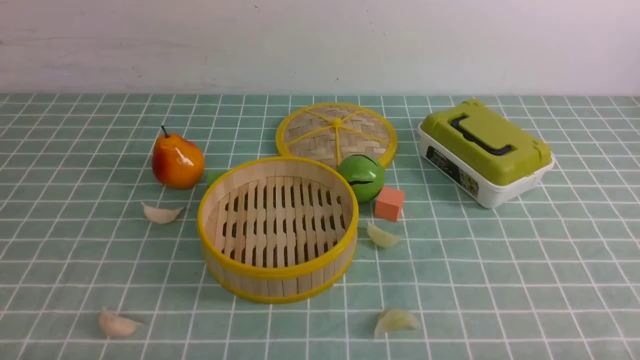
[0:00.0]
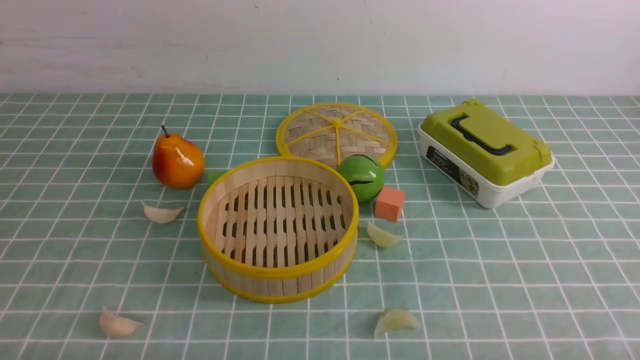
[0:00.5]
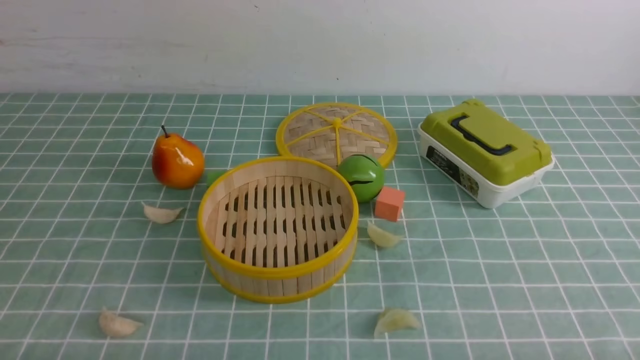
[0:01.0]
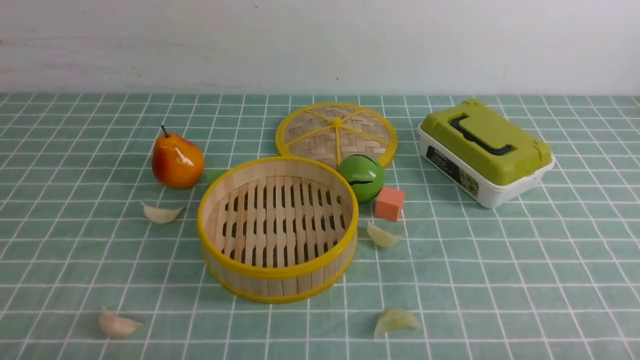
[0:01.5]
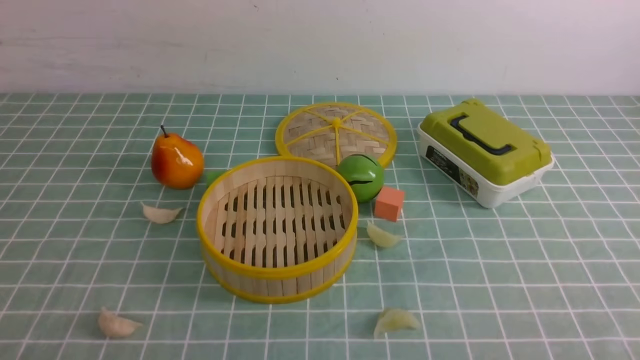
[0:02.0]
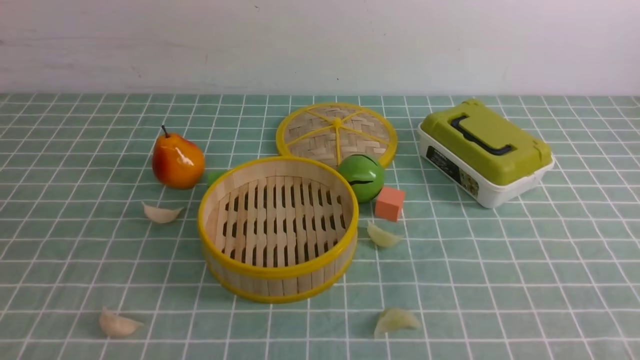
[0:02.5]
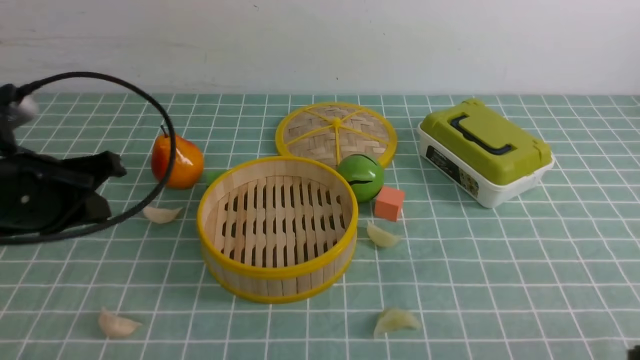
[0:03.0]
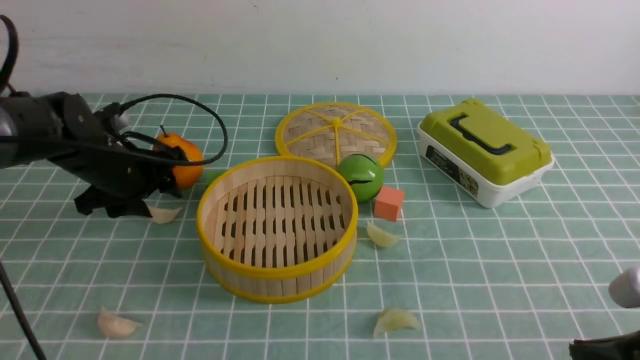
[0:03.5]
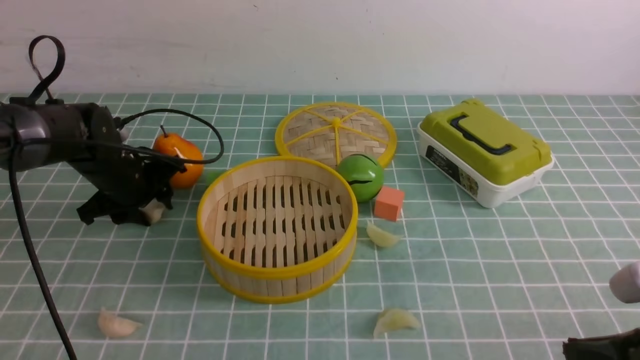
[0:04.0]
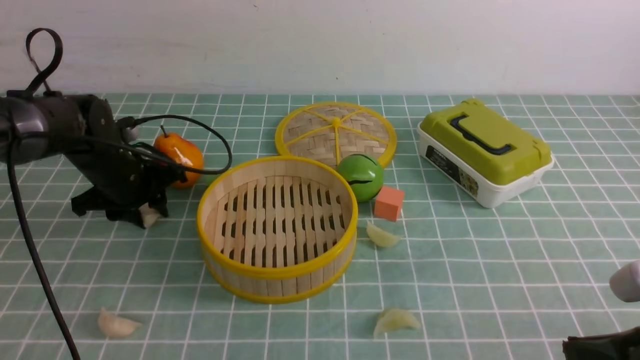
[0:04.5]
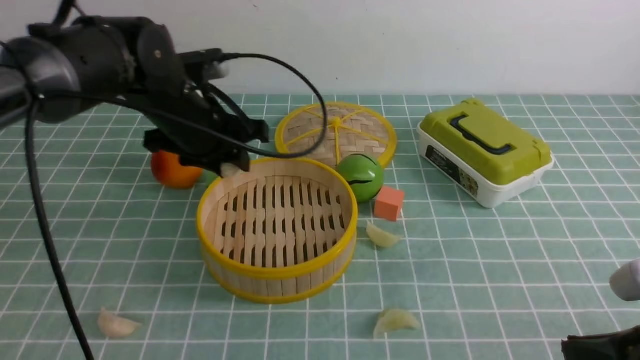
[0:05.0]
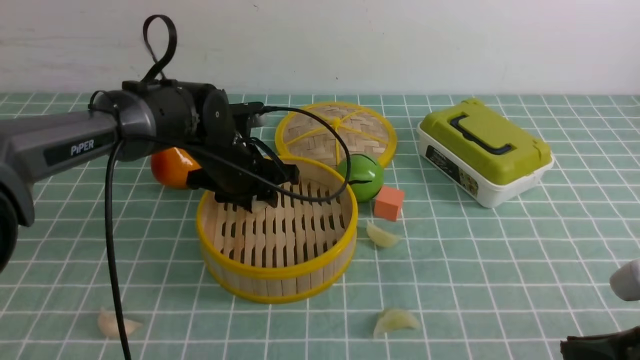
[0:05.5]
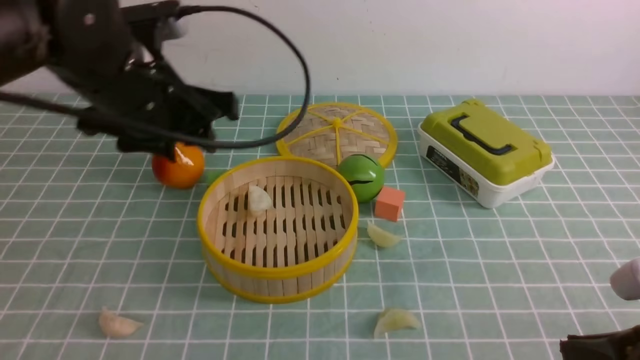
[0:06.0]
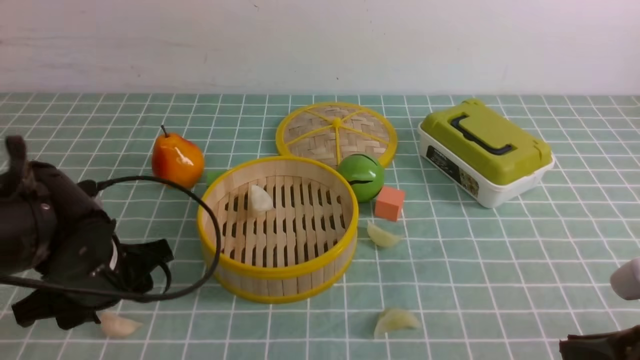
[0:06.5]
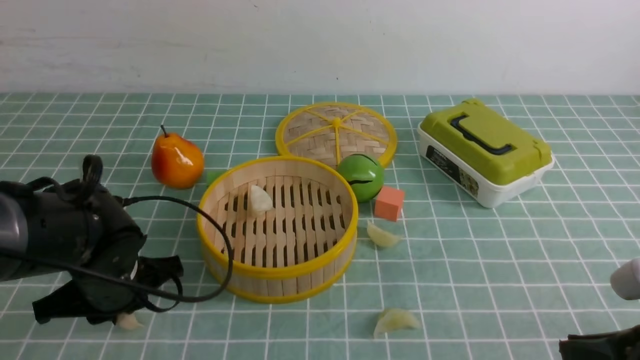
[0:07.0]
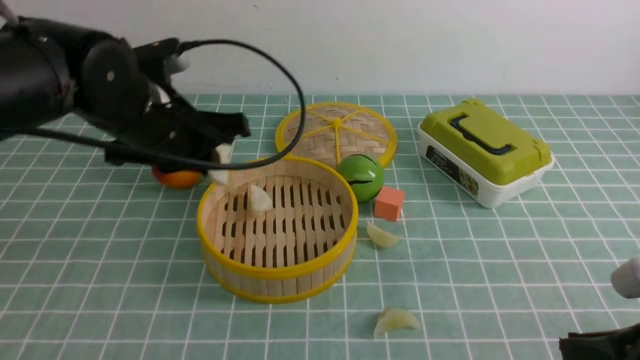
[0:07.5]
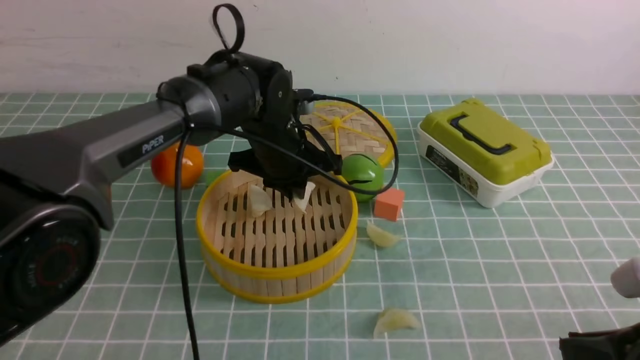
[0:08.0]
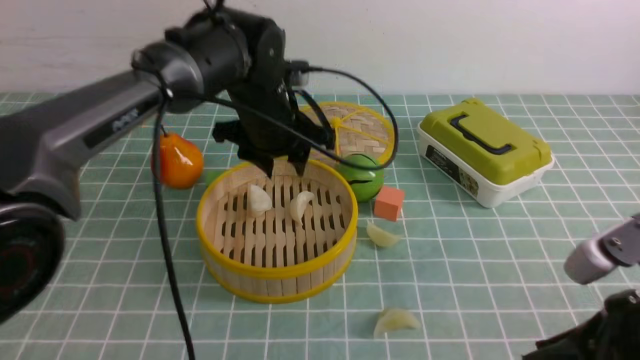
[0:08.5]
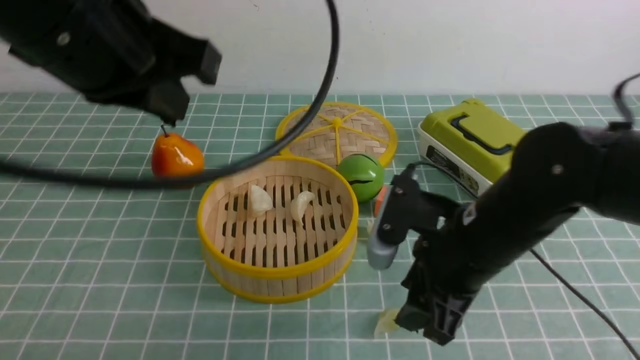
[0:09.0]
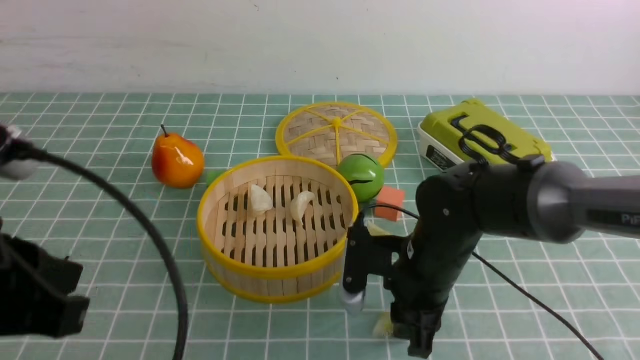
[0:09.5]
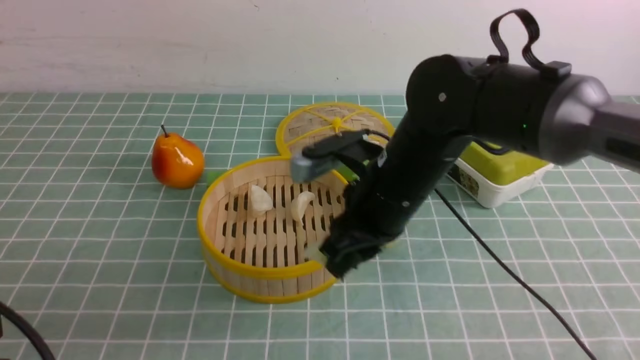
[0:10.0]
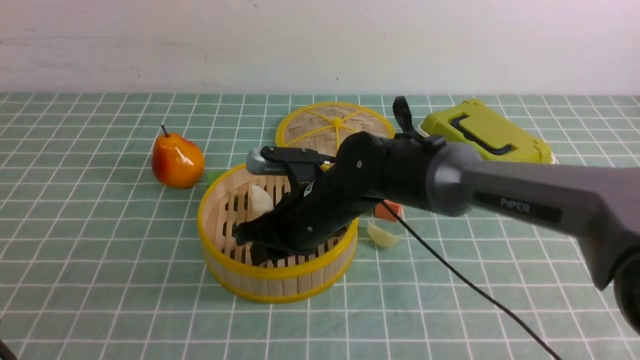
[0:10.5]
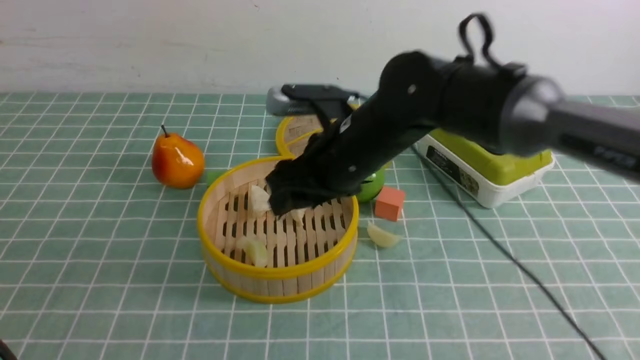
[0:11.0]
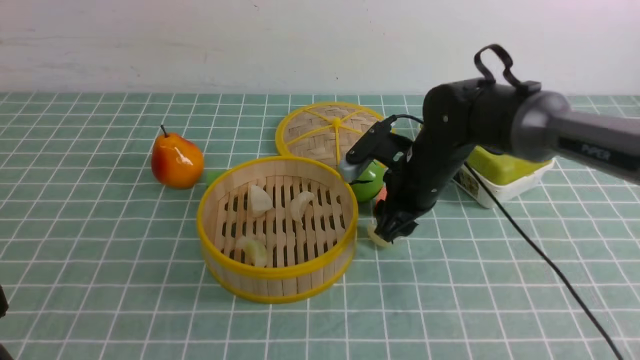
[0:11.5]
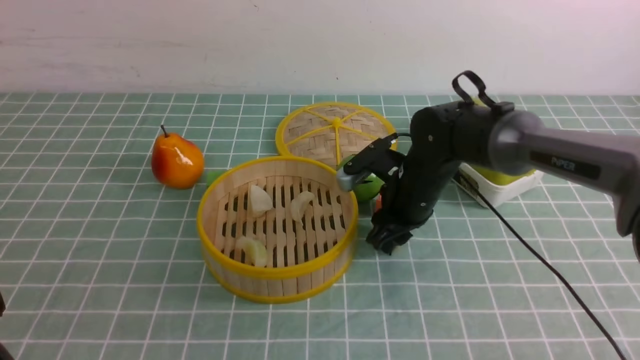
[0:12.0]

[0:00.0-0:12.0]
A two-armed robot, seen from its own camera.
Task of the whole recording: put the dumplings into the steamer on the table with the blue tablecloth.
Step, 0:00.0 to 0:04.5: use the left arm to grab a dumpling.
Step, 0:05.0 to 0:06.0: use the left arm to put the dumpling into the steamer.
Step, 0:06.5 to 0:07.0: use the left arm to grab a dumpling.
Step, 0:07.5 to 0:08.0: use the left arm to put the dumpling into the steamer.
Step, 0:08.5 to 0:10.0: use the right arm to grab a dumpling.
Step, 0:10.5 to 0:11.0: use the right arm to put the dumpling into the steamer.
0:02.0 to 0:04.0: The left gripper heads forward, covering about 40 cm, and opens its fingers; the right gripper goes about 10 cm forward and to the left, and closes up.
0:04.0 to 0:06.0: The left gripper moves upward, backward and to the right, roughly 20 cm.
0:06.0 to 0:08.0: The left gripper heads forward, to the right and downward, covering approximately 15 cm, and closes up.
0:08.0 to 0:10.0: The left gripper shifts some 40 cm backward and to the left, and opens, then closes once more, while the right gripper is displaced to the left and forward by about 30 cm, and opens, then closes once more.
0:10.0 to 0:12.0: The right gripper is displaced forward, downward and to the right by roughly 15 cm.

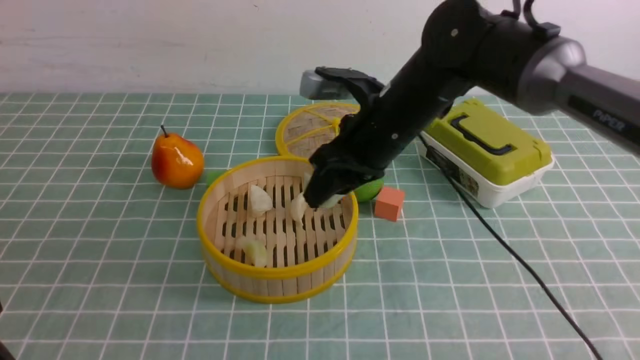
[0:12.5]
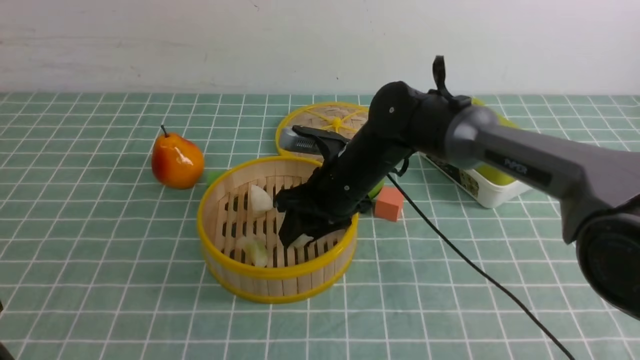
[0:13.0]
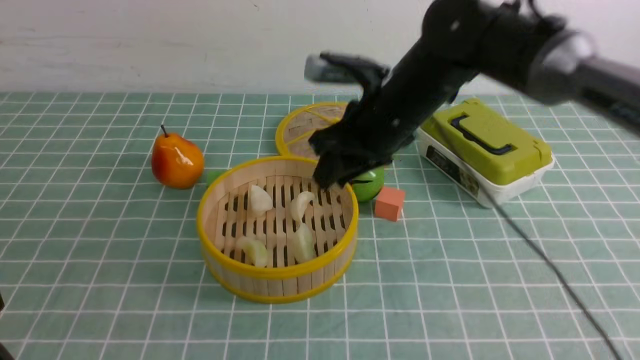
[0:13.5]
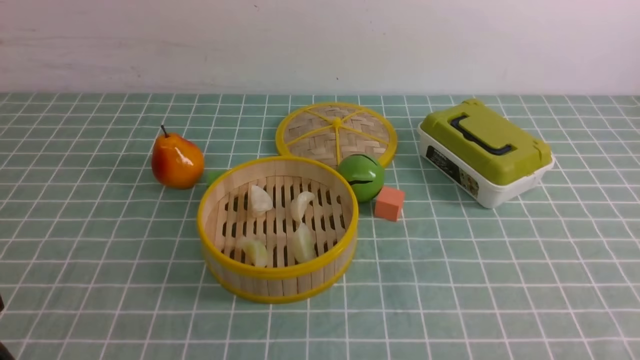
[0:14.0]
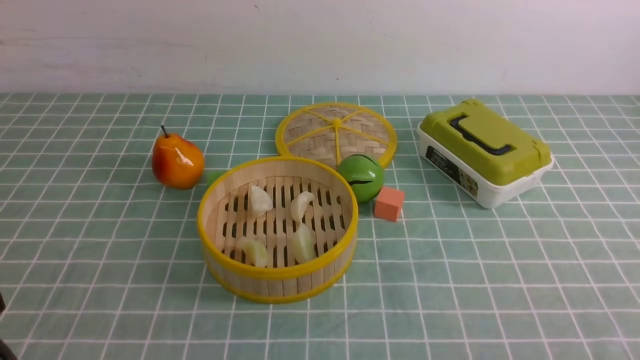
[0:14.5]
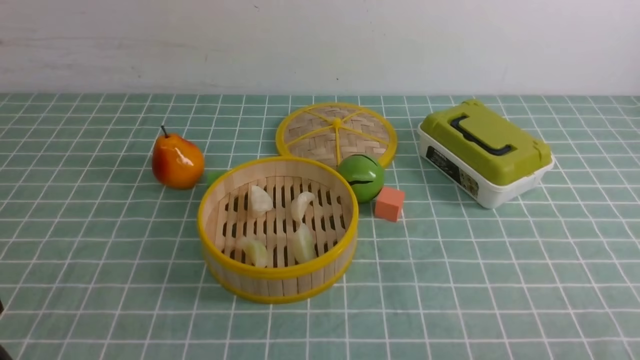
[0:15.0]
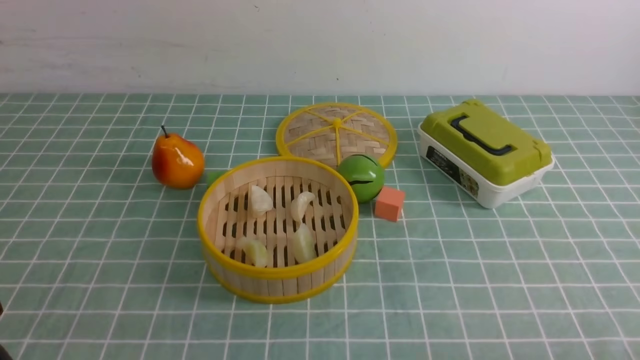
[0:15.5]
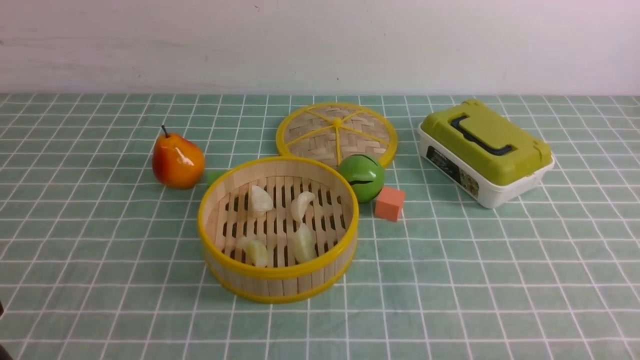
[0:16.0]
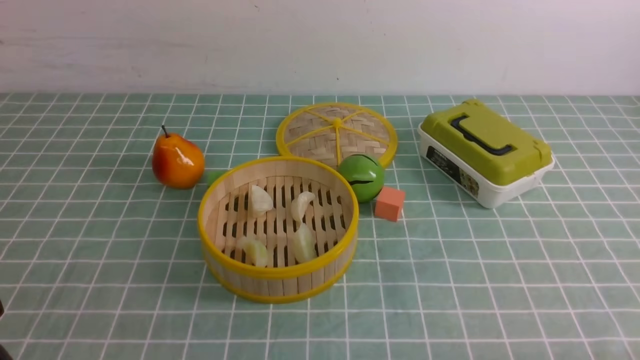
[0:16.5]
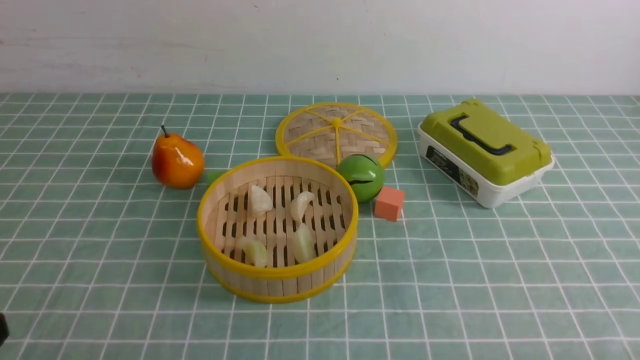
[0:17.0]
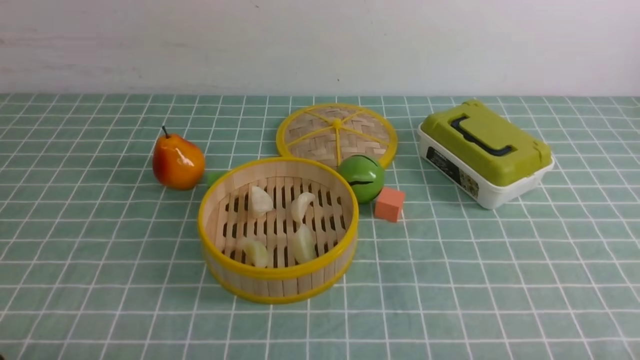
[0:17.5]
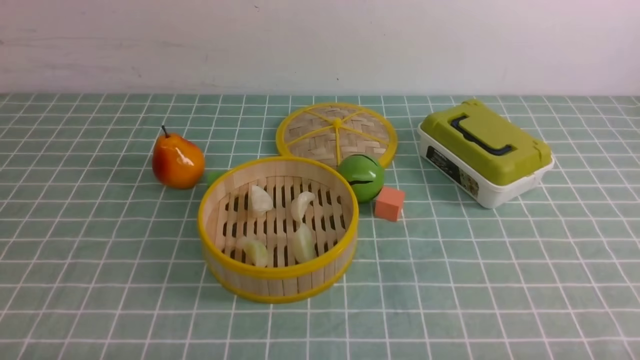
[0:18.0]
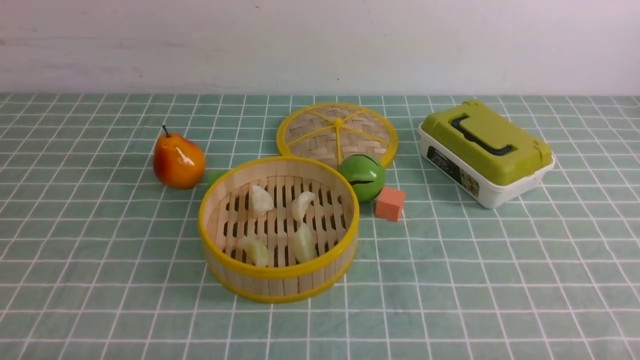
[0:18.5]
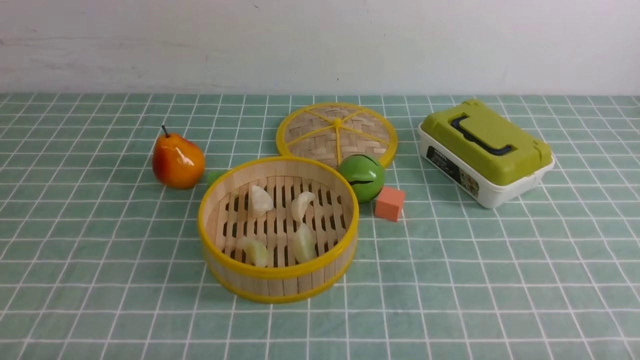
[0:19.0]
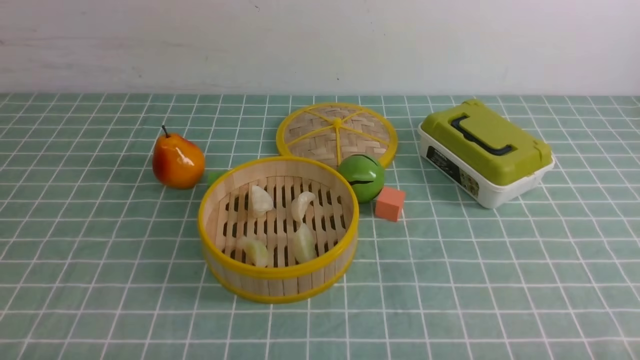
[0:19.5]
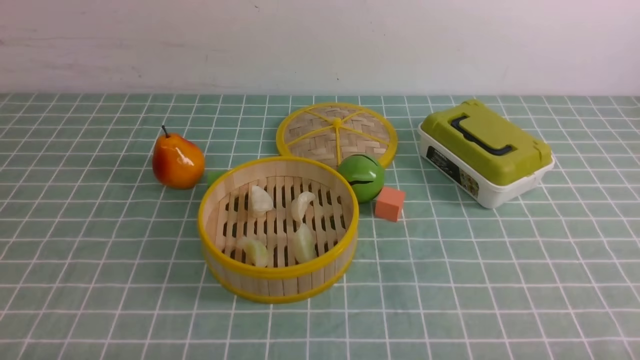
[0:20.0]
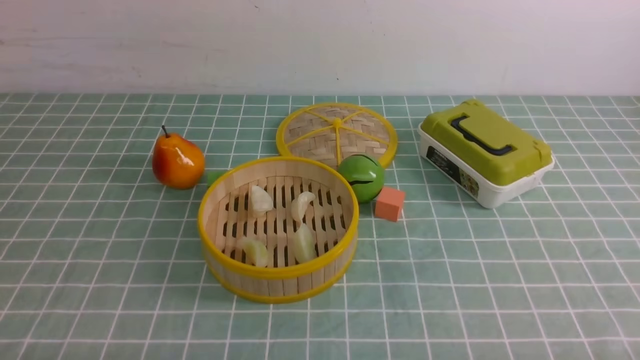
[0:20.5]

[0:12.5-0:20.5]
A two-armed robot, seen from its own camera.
Task of the whole recording: put the dumplings into the steamer on the table with the blue tablecloth.
Step, 0:12.5 to 0:13.0: use the right arm to put the dumpling into the steamer.
0:12.5 to 0:14.5: The right gripper goes approximately 40 cm backward and to the right, and closes up.
0:18.5 to 0:20.5: The two grippers keep their place.
